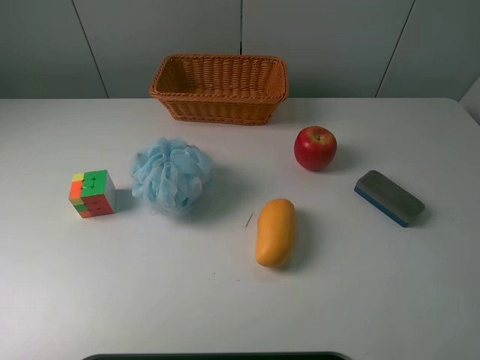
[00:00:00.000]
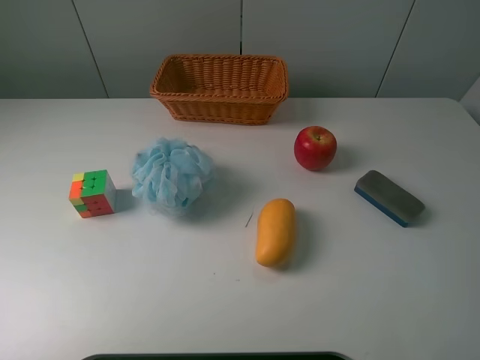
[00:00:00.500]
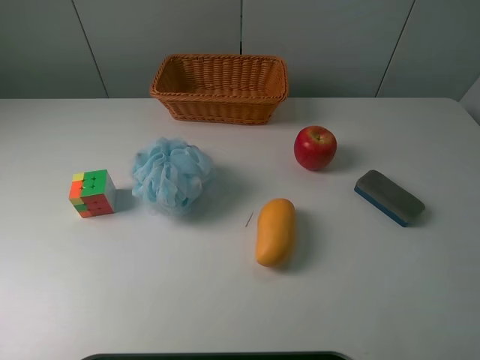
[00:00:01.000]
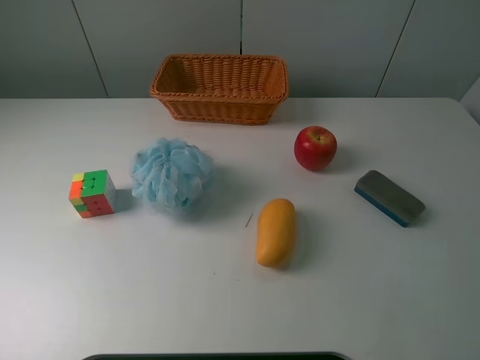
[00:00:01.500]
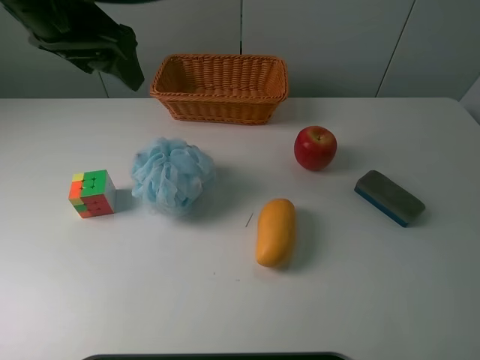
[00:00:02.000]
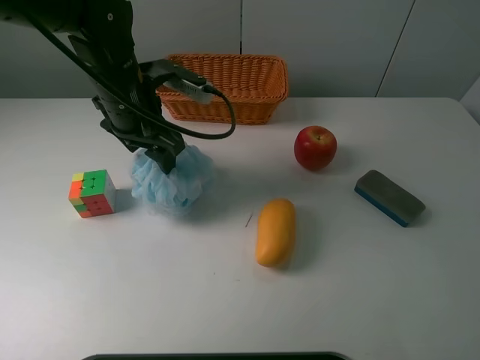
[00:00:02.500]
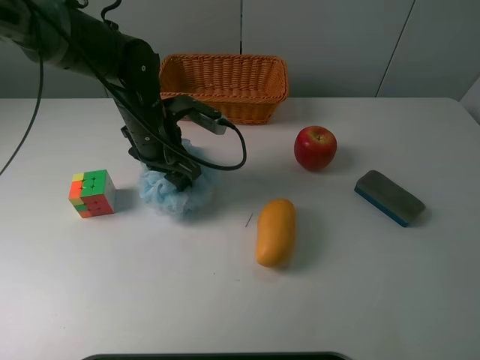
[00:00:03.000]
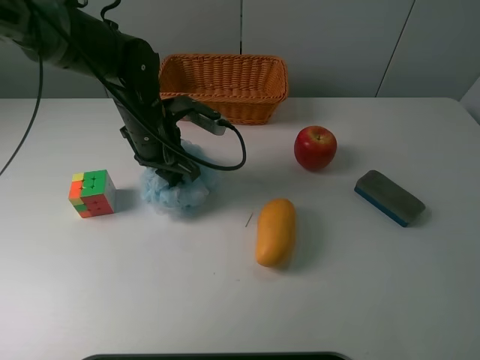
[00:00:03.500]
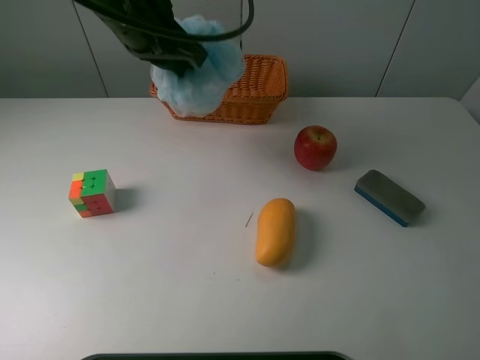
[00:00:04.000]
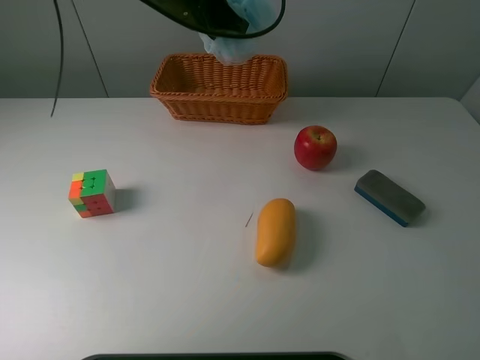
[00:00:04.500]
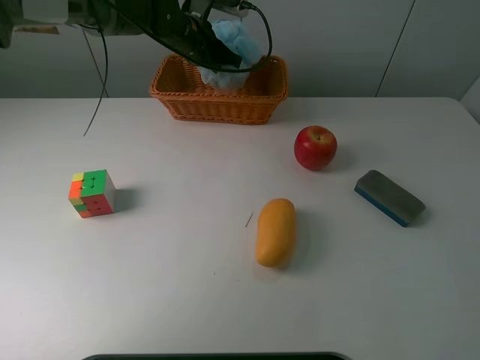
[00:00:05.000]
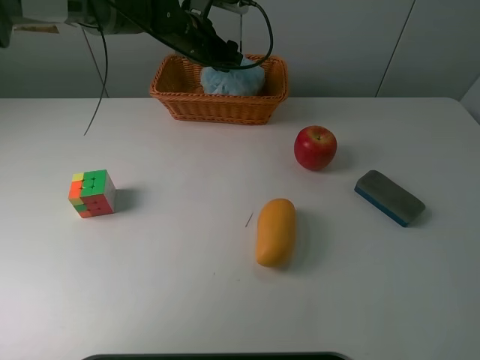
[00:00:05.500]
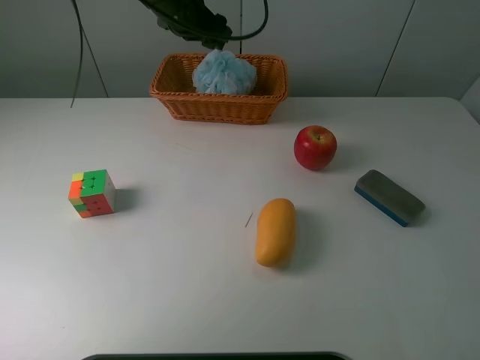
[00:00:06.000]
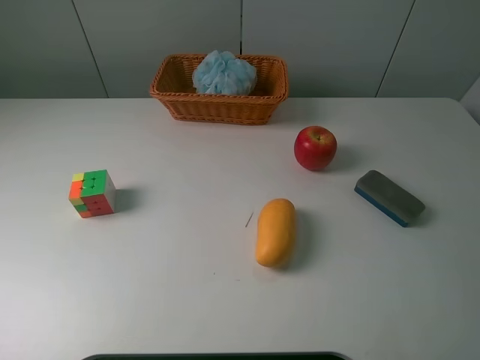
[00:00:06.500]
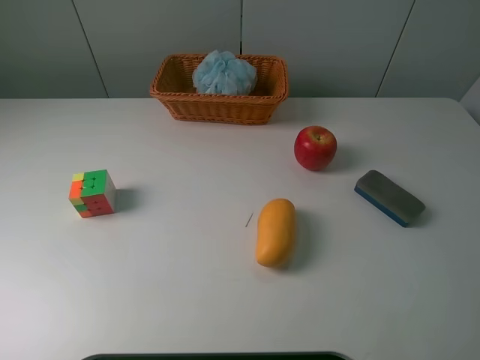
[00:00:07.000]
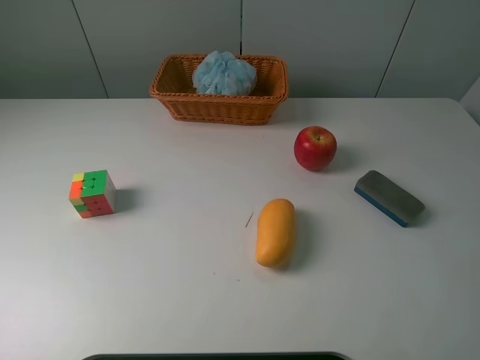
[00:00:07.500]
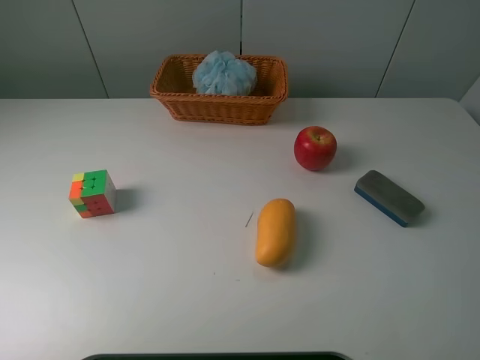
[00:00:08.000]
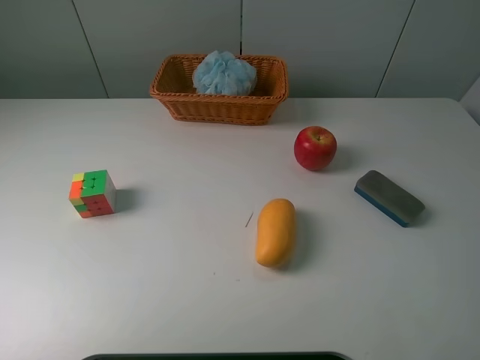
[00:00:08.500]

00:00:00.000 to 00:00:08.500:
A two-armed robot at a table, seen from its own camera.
Task of the whole recording: use a picker to grab the item closest to the cube and place it in the basket.
Step, 00:00:00.000 to 00:00:03.500: Grasp the Shower puff with the left gripper.
Step, 00:00:04.000 to 00:00:05.500: Place the Shower puff into the basket with the left gripper.
00:00:00.000 to 00:00:02.000: The left gripper shifts roughly 35 cm forward and to the right.
00:00:02.000 to 00:00:04.000: The left gripper travels to the right by approximately 5 cm, travels downward and back again, approximately 20 cm each way, and closes up.
00:00:04.000 to 00:00:06.500: The left gripper travels upward, to the left and backward by about 35 cm, and opens up.
